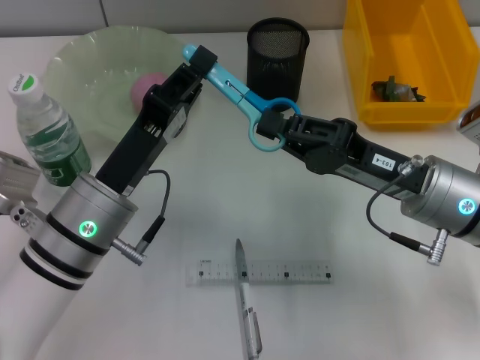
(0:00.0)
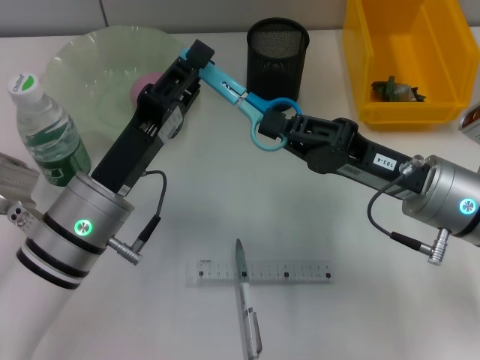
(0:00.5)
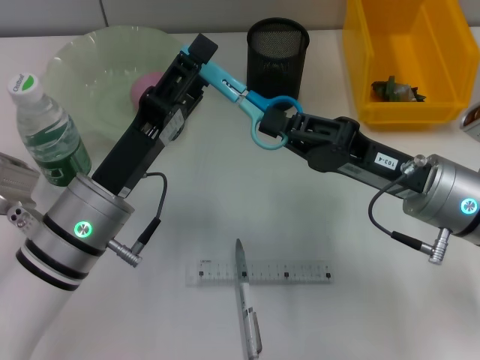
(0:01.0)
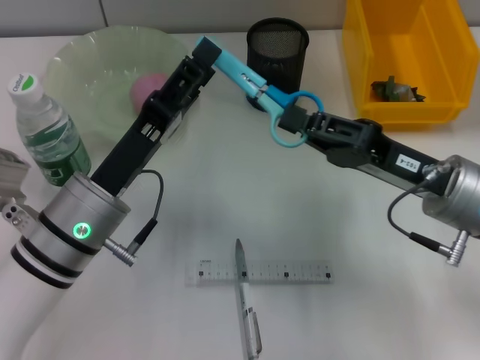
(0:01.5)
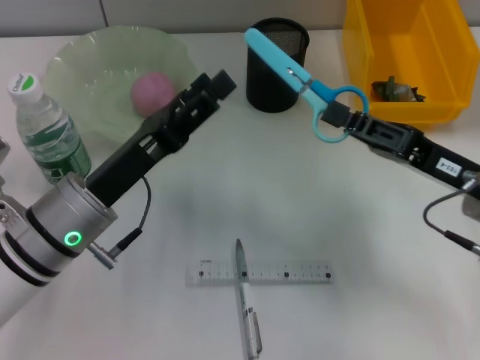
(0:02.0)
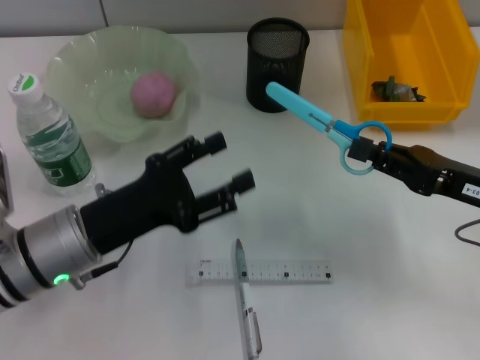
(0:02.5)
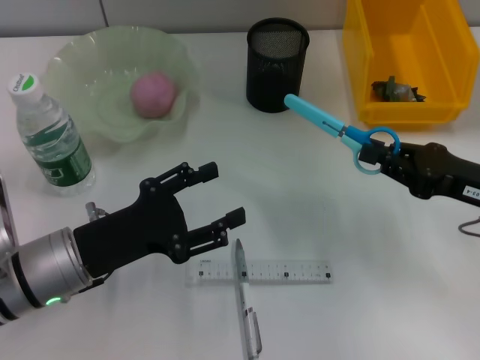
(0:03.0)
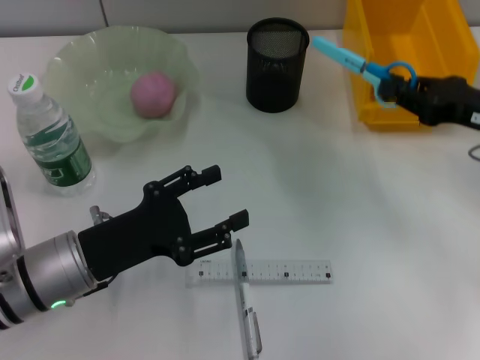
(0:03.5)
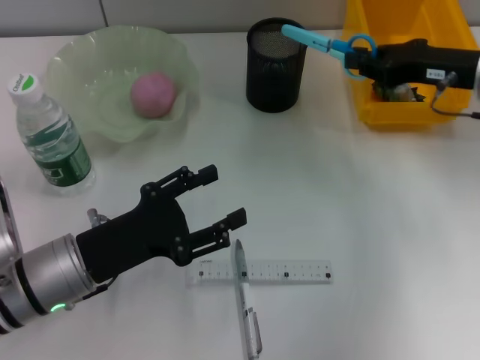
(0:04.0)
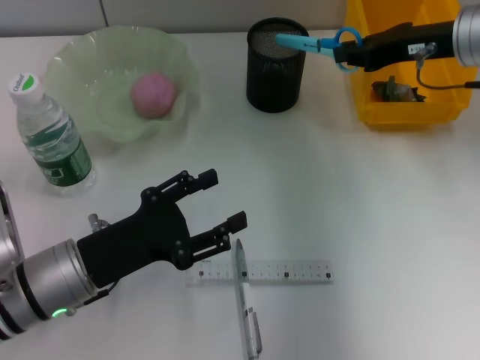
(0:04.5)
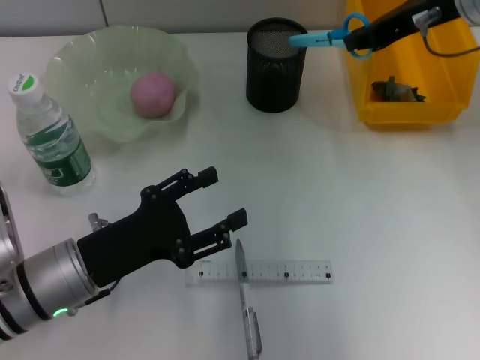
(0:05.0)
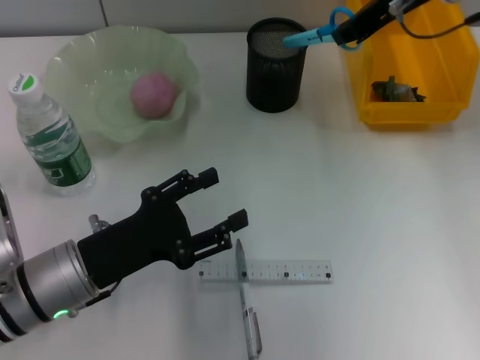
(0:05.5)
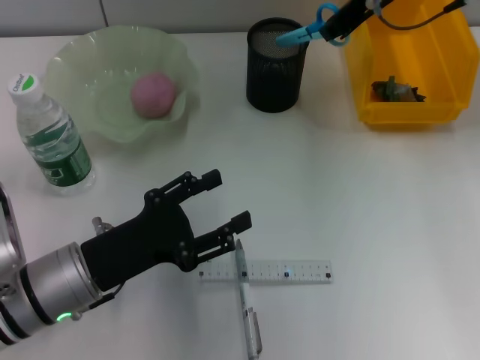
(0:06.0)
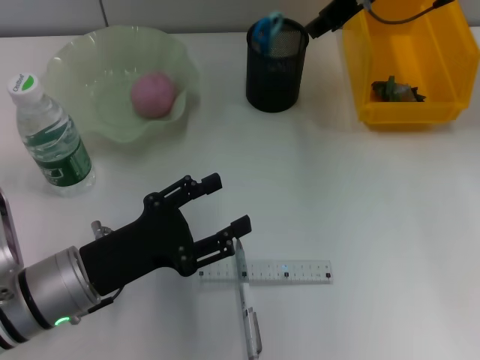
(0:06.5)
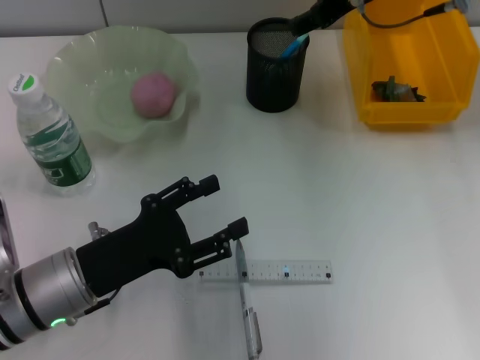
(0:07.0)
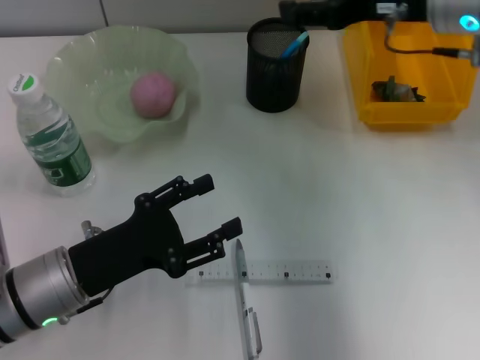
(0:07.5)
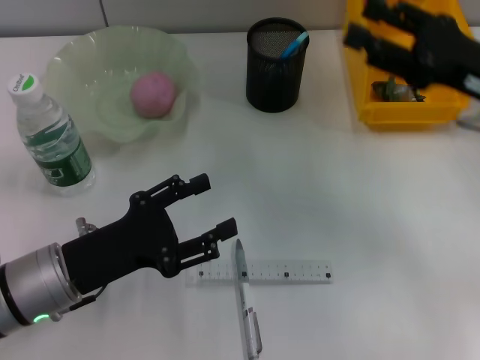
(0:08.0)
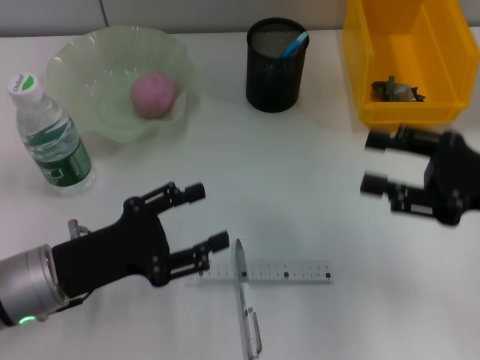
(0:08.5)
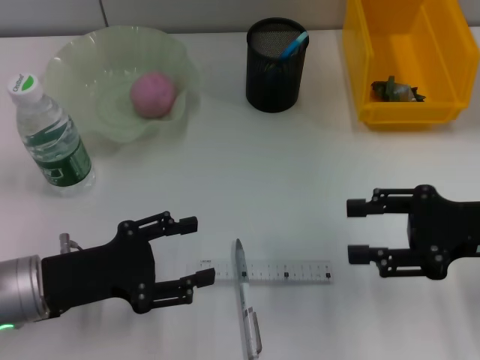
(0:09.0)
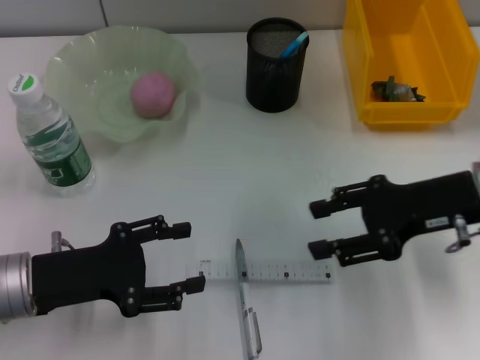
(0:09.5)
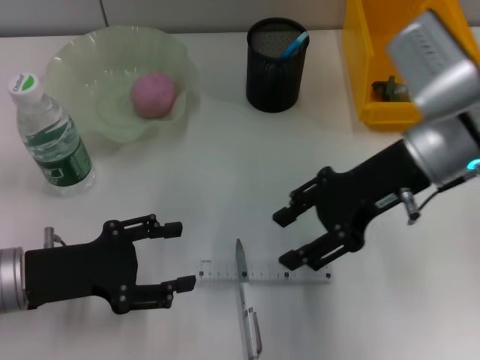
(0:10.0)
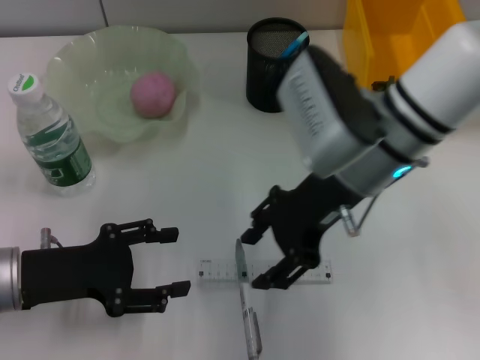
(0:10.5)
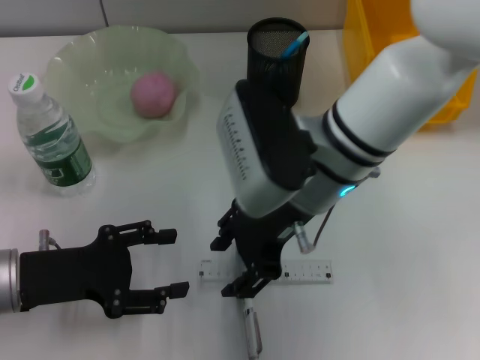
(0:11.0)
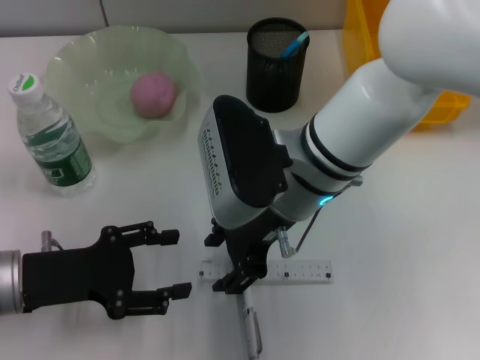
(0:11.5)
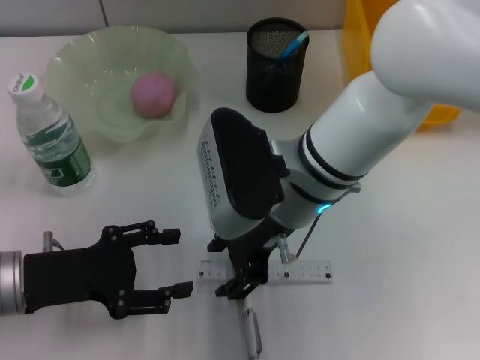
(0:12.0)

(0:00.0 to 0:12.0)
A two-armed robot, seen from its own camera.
Step, 0:01.0 - 0:07.0: Place the blue scissors into the pen holder with the right hand.
0:00.0 - 0:02.0: The left gripper opens, while the right gripper goes approximately 5 cm to the right.
0:02.0 - 0:04.0: The right gripper travels forward and upward by roughly 15 cm.
0:04.0 - 0:06.0: The right gripper moves upward, to the left and forward, some 15 cm.
0:06.0 - 0:08.0: The right gripper goes some 20 cm backward, to the right and downward, and opens.
0:08.0 - 0:10.0: The right gripper shifts roughly 10 cm to the left.
0:10.0 - 0:12.0: The right gripper travels to the left by roughly 15 cm.

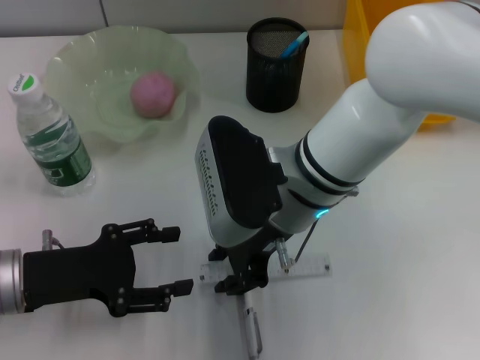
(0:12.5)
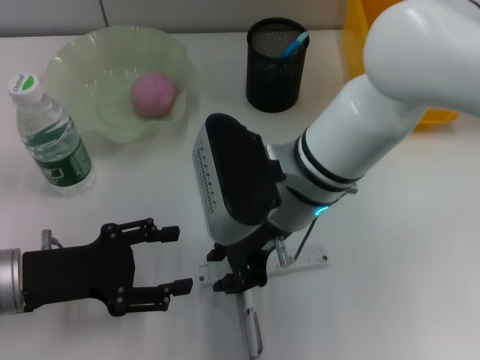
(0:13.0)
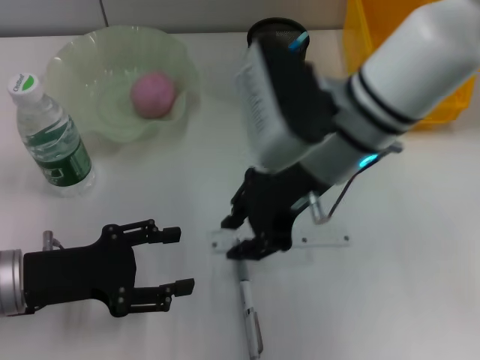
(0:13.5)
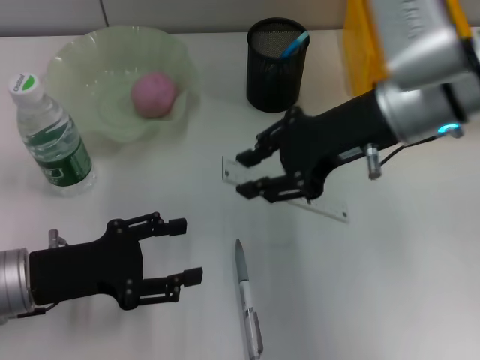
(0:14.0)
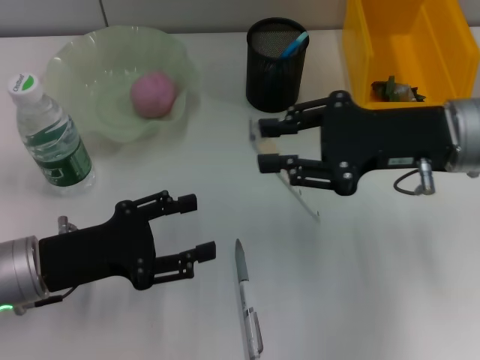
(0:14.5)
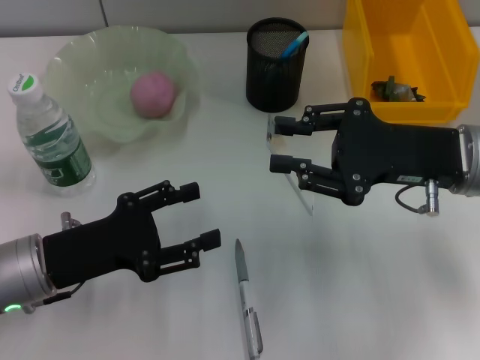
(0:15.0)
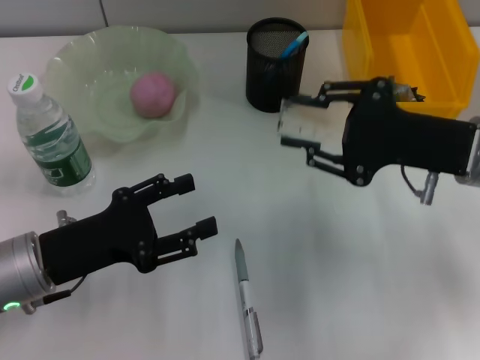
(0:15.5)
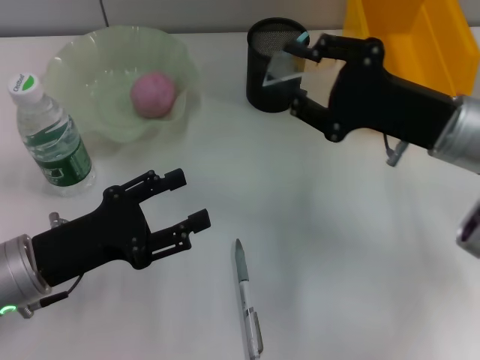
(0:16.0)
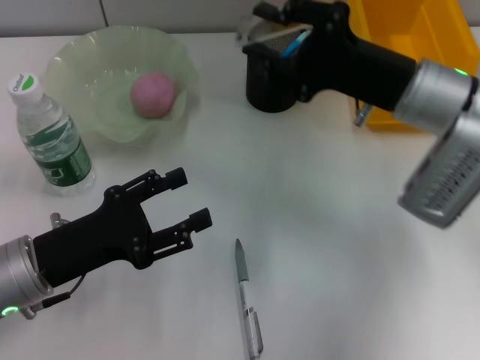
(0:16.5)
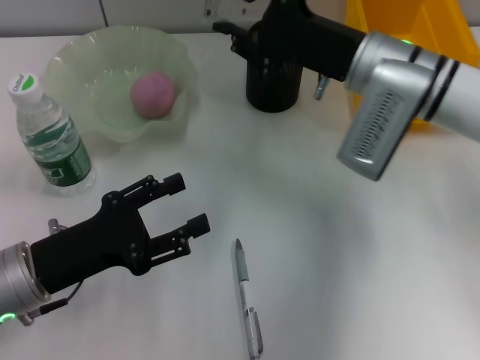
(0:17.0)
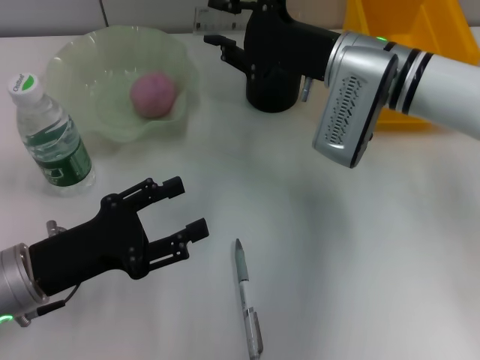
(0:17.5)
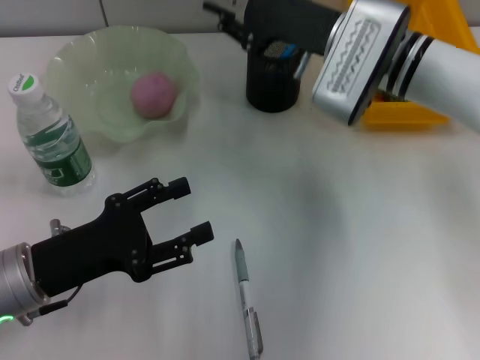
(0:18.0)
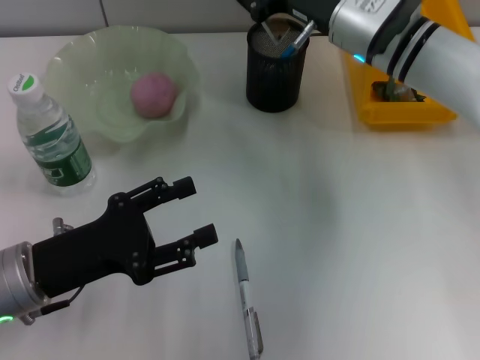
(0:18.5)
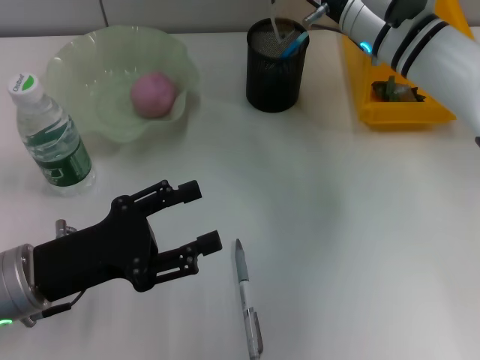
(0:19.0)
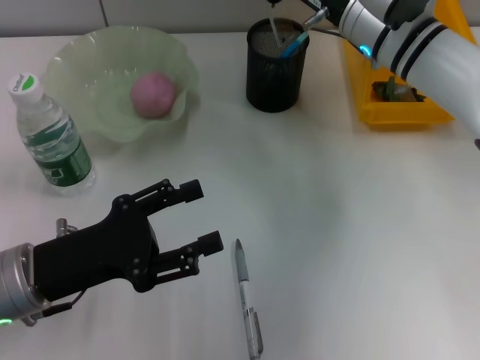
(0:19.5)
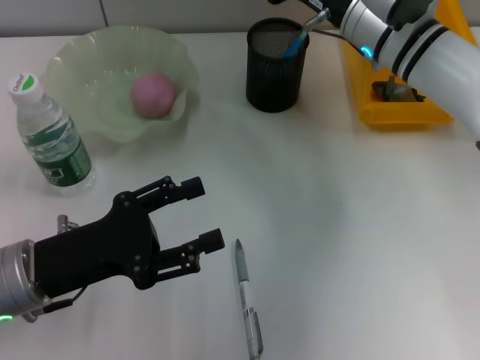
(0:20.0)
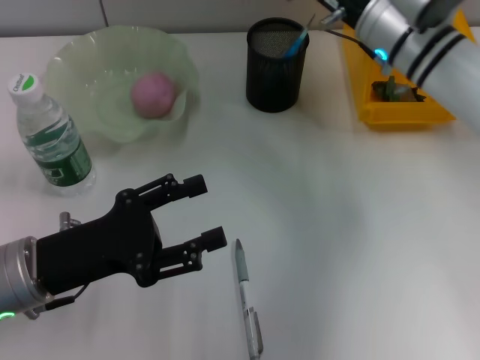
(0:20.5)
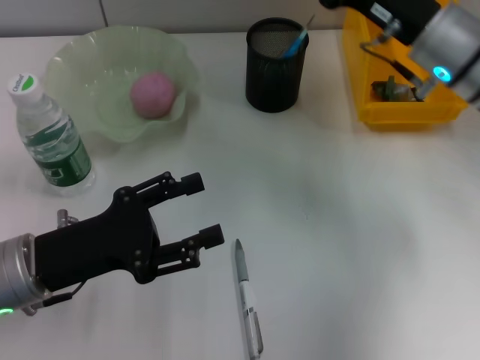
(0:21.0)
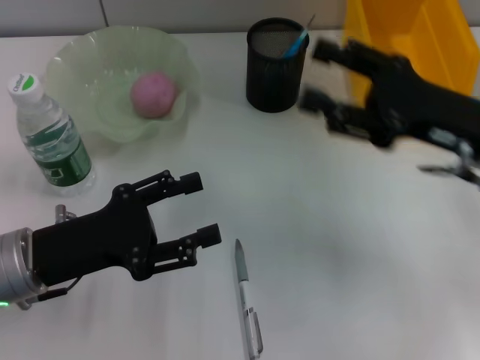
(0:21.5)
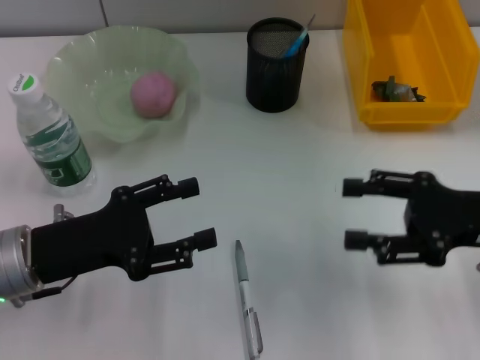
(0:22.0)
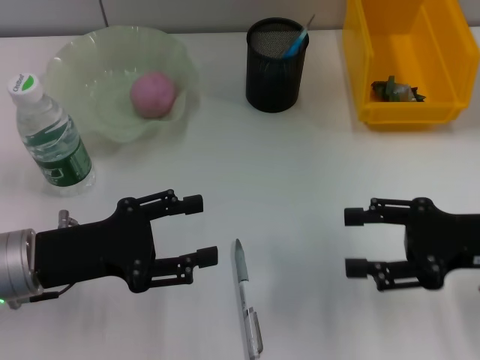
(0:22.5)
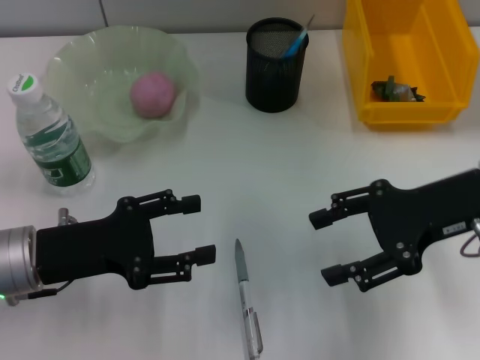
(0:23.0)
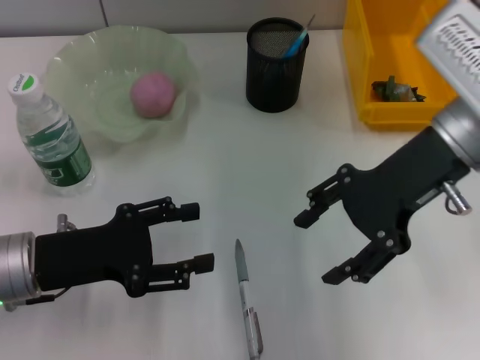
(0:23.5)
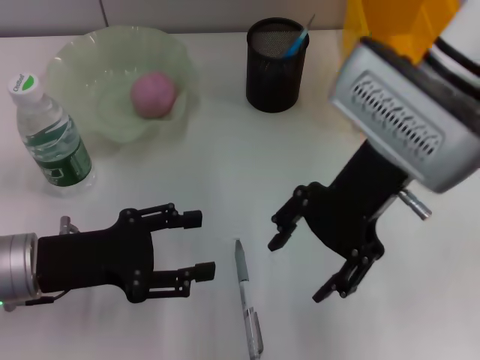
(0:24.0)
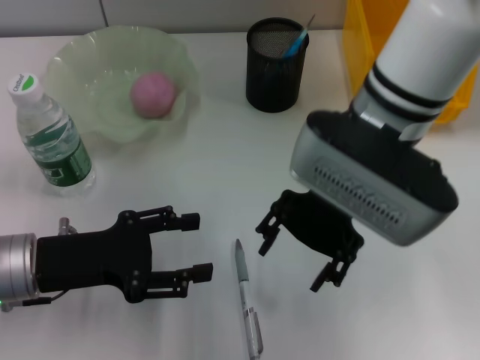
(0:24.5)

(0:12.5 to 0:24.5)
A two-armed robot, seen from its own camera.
Step, 0:13.5 - 0:20.0: Place the ruler into the pen holder with the right hand.
0:12.5 - 0:14.5: The right gripper is displaced to the right by about 15 cm.
0:14.5 - 0:16.5: The right gripper ends up about 5 cm from where it was.
0:16.5 - 0:18.5: The right gripper heads forward, covering approximately 5 cm.
0:18.5 - 0:20.5: The right gripper opens up.
0:20.5 - 0:22.5: The right gripper travels backward and to the right by roughly 20 cm.
0:22.5 - 0:24.5: The right gripper shifts about 20 cm to the left and upward.

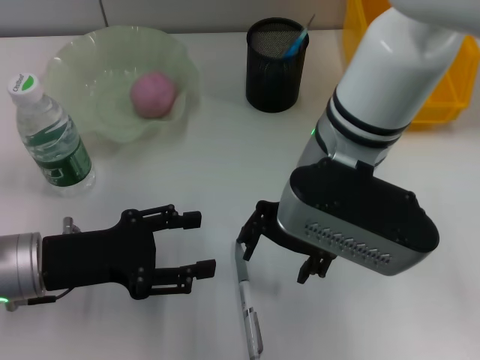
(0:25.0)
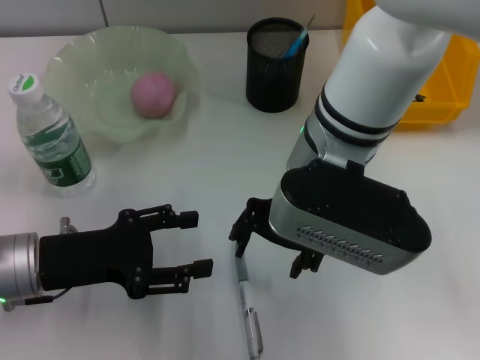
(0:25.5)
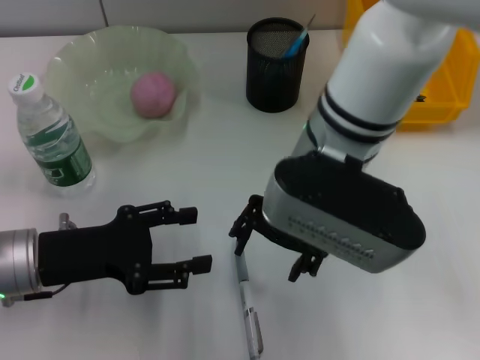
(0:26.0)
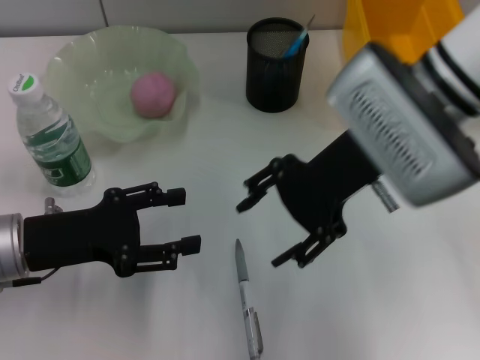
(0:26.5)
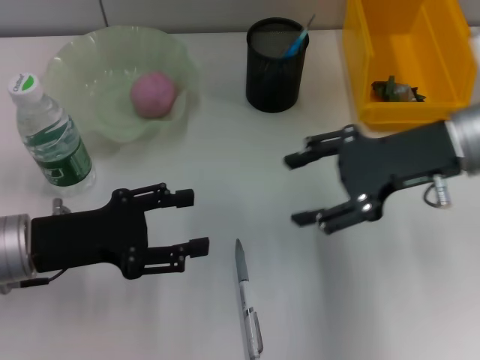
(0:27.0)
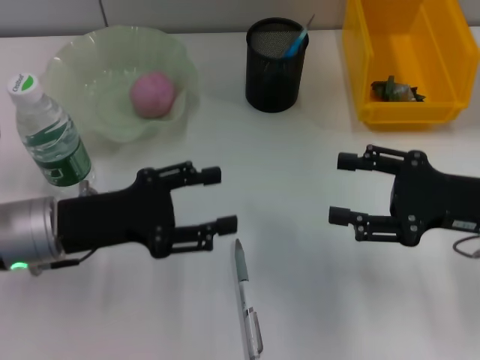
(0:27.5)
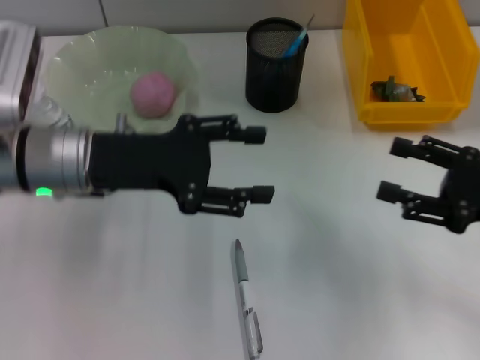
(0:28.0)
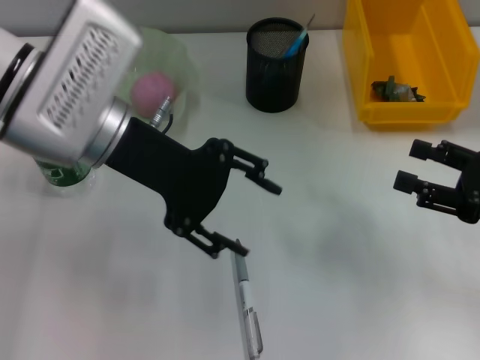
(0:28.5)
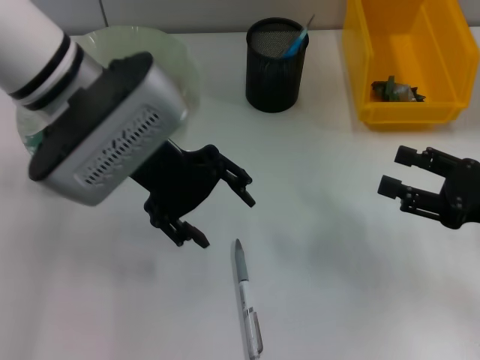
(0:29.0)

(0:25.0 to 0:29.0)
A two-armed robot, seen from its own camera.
0:25.0 - 0:27.0: The right gripper travels to the right by roughly 15 cm.
0:27.0 - 0:29.0: The left gripper travels upward, to the right and forward by roughly 20 cm; the right gripper heads to the right, downward and backward, covering roughly 15 cm.
